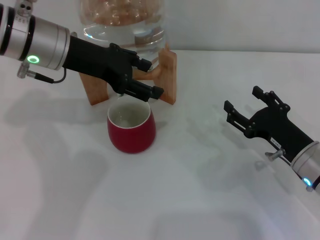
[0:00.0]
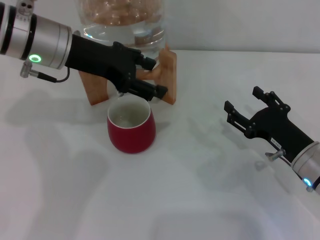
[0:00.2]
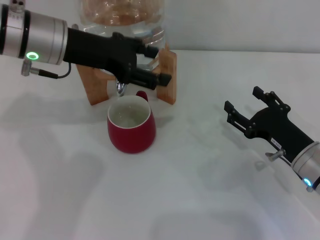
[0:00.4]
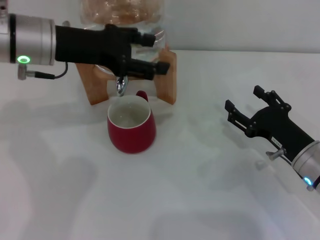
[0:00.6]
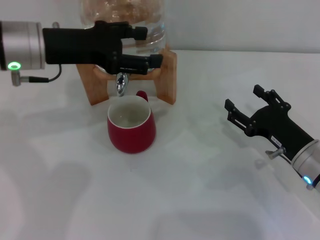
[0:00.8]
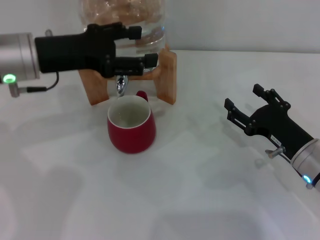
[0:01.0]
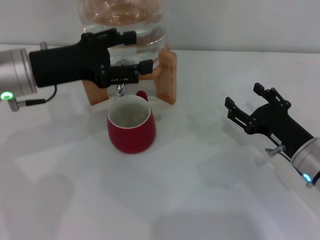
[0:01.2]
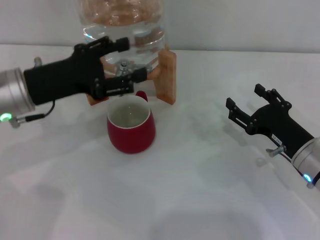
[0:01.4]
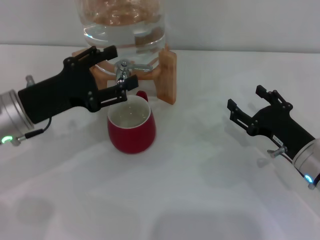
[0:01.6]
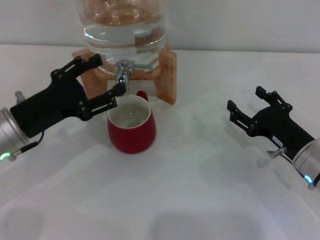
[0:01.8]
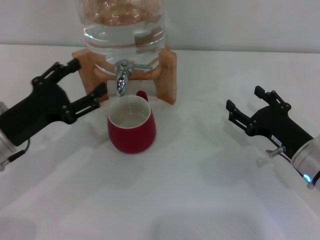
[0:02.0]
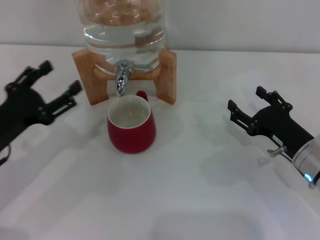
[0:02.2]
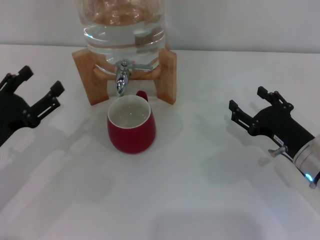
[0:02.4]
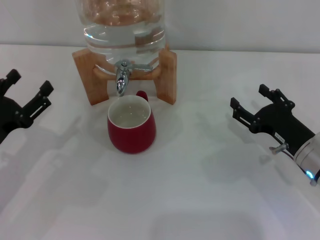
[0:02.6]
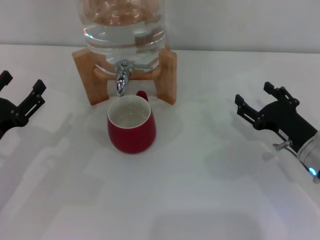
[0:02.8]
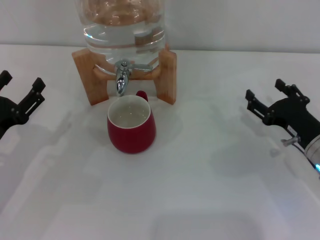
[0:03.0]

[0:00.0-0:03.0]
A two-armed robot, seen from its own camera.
Task of the whole recording: the right gripper pick up the red cup and place it horizontally under the faucet, the left gripper turn on the faucet to fill the cup, and then turn off the faucet.
0:00.0 to 0:01.6: The left gripper is displaced downward, backward and to the left by roughly 15 cm.
0:01.6 to 0:03.0: The left gripper shifts approximately 10 cm downward, backward and to the left.

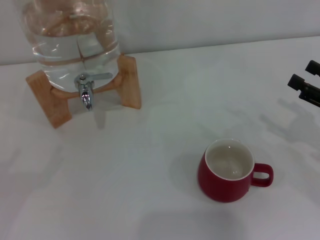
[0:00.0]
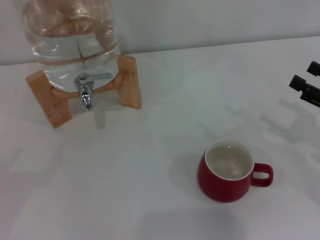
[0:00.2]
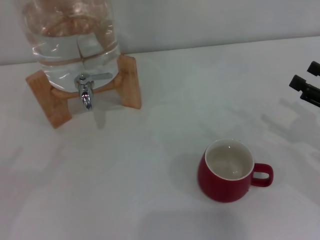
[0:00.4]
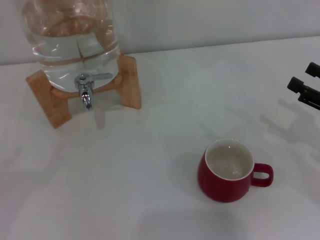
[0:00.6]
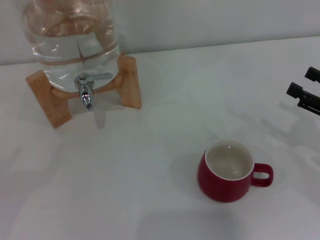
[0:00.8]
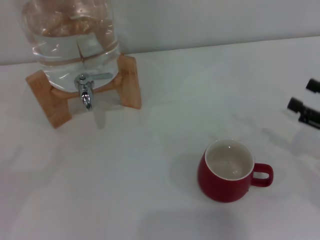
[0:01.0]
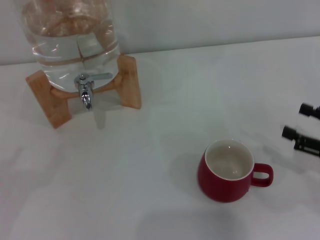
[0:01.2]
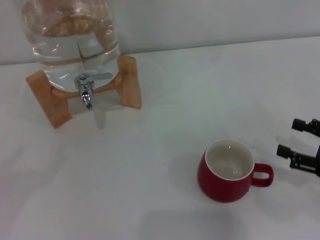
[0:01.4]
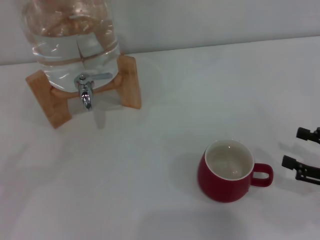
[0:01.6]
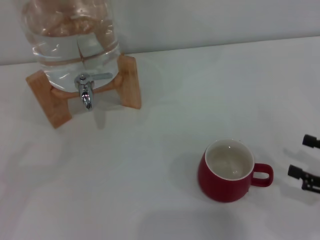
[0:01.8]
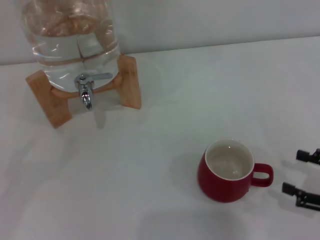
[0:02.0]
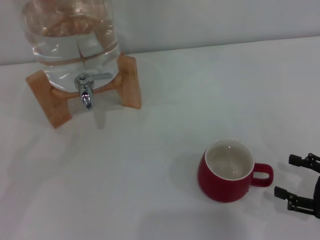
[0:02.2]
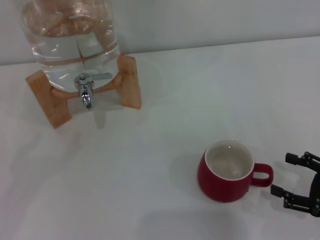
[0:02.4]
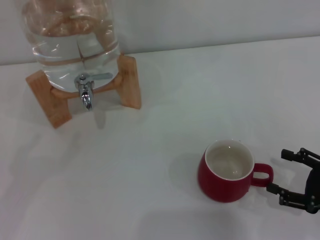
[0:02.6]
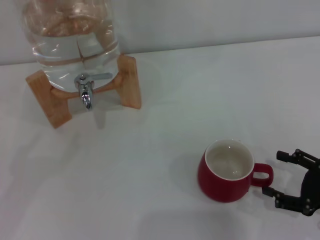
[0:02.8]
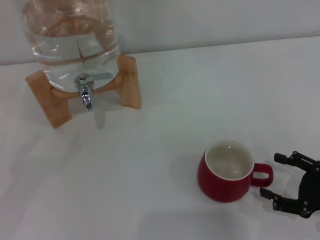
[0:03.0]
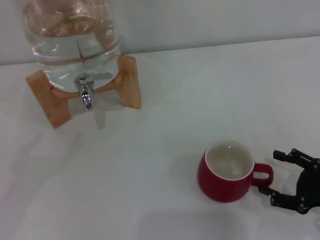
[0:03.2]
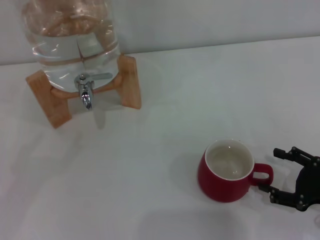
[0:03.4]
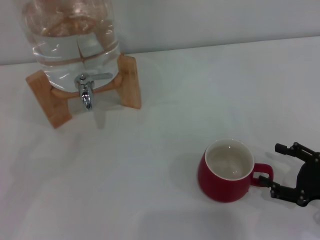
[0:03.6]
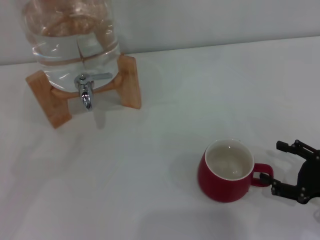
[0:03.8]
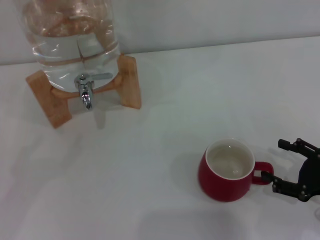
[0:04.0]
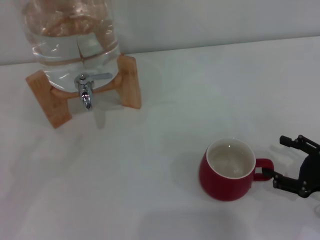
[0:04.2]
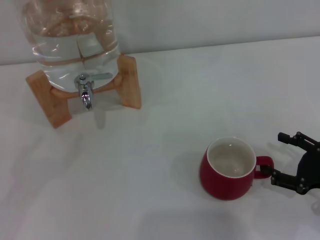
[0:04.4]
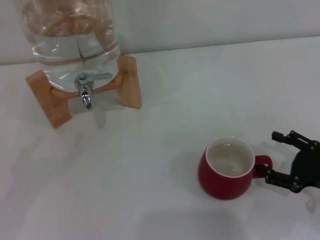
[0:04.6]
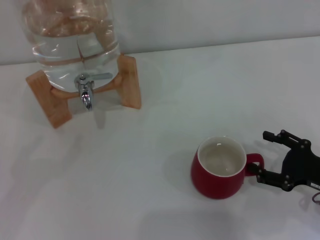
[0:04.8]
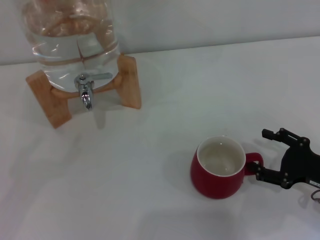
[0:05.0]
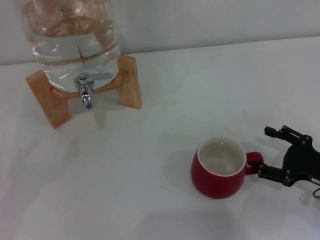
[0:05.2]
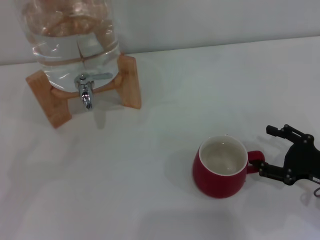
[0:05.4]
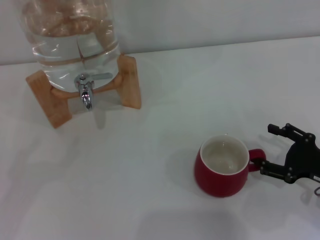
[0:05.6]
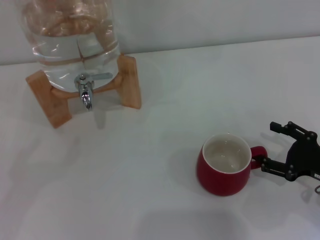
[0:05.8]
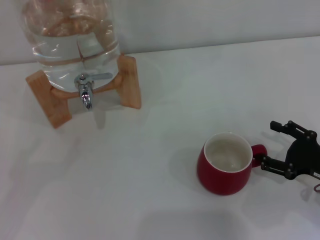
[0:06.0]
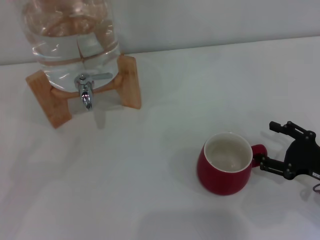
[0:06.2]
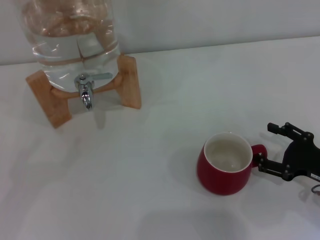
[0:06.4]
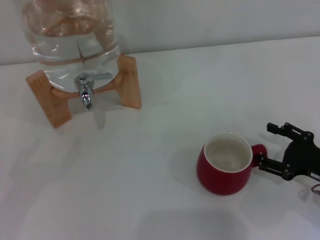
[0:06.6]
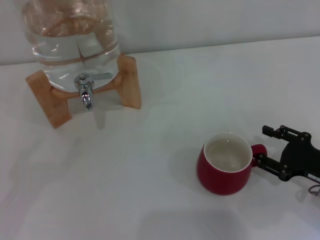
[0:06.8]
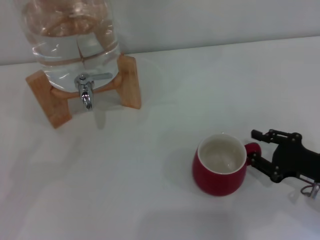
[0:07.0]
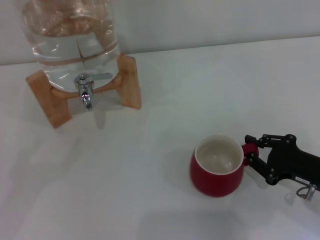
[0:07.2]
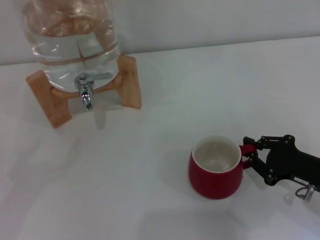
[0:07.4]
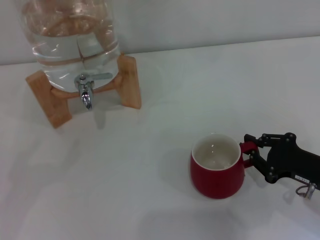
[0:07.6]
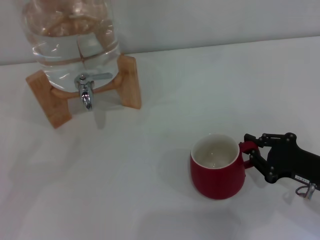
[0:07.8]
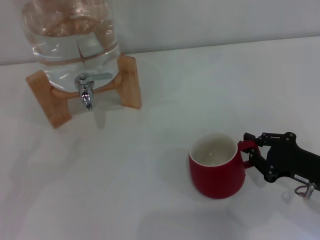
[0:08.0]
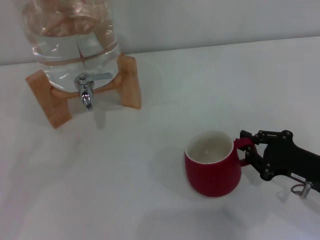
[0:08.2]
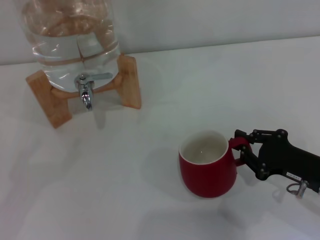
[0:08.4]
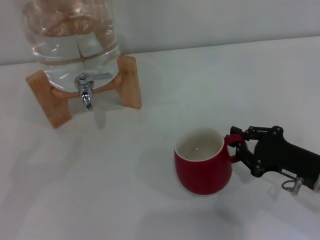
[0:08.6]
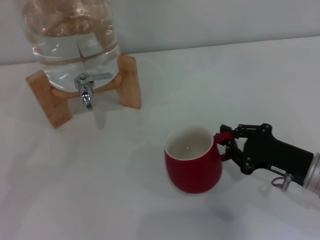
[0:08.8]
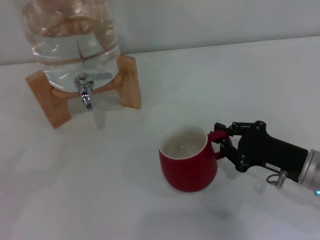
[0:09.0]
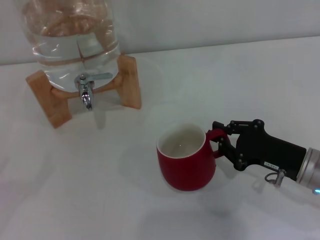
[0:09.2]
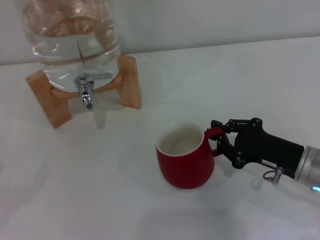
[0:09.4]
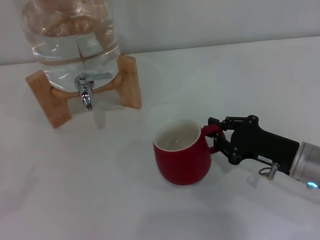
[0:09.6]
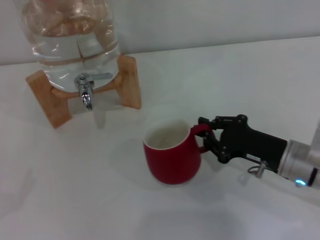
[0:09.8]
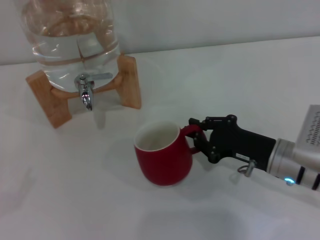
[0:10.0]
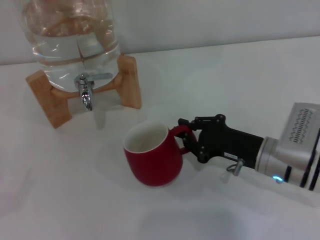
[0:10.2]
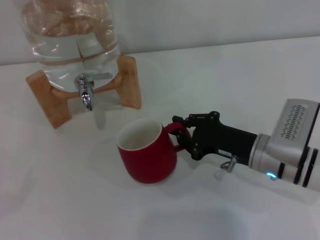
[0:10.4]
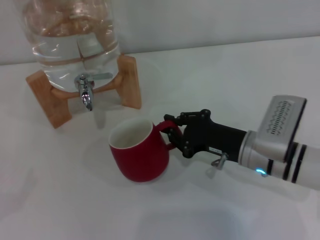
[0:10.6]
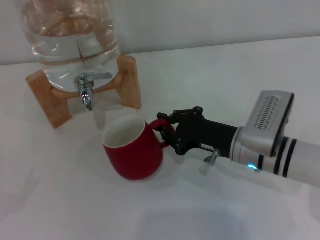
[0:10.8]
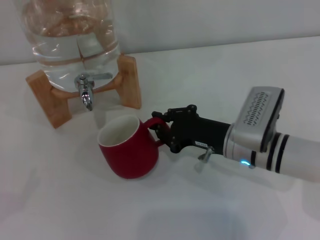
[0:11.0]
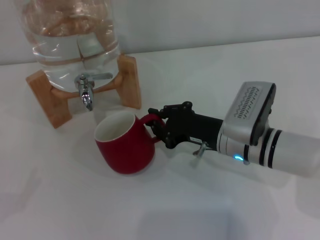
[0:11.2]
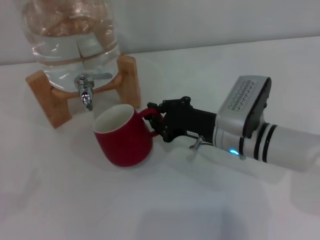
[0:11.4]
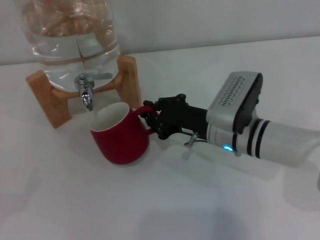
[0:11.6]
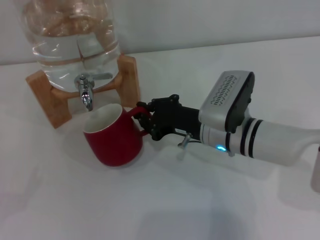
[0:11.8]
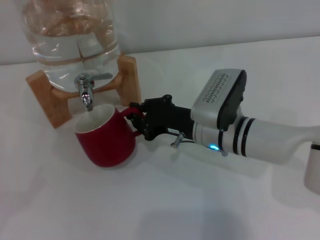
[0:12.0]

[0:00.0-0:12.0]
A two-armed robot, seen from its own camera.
Task of the whole recording: the right gripper pick up the red cup and place it horizontally under the faucet, the left gripper turn on the faucet to fill the cup, and then turn off the faucet.
0:00.0 to 0:01.6: The right gripper is displaced backward by roughly 5 cm.
0:01.6 to 0:06.0: There are only small adjustments of the grippers.
0:06.0 to 0:07.6: The right gripper closes its fingers.
0:07.6 to 0:09.0: There are only small adjustments of the grippers.
0:09.0 to 0:10.4: The right gripper heads to the left, covering approximately 5 cm.
0:10.4 to 0:12.0: The right gripper goes some 10 cm to the left and forward.

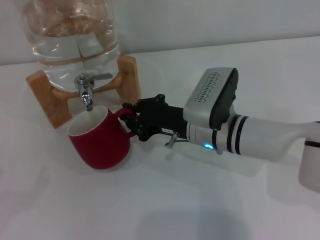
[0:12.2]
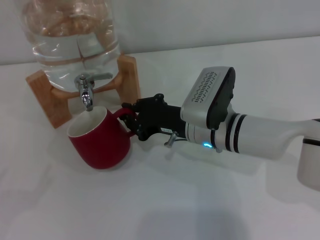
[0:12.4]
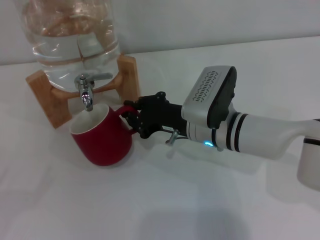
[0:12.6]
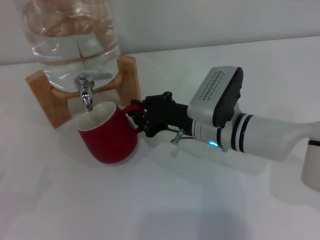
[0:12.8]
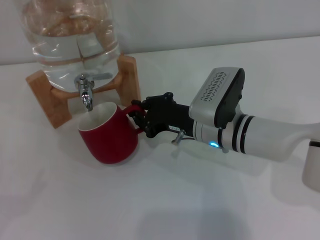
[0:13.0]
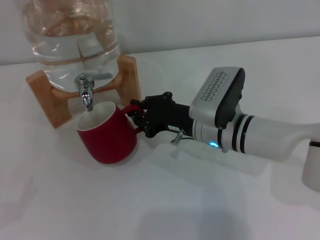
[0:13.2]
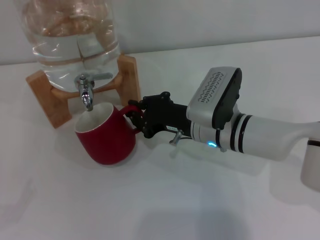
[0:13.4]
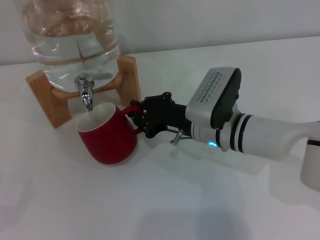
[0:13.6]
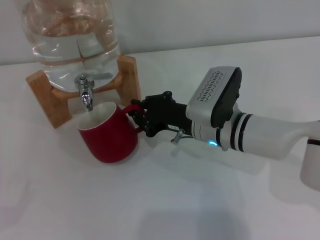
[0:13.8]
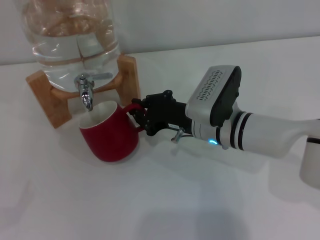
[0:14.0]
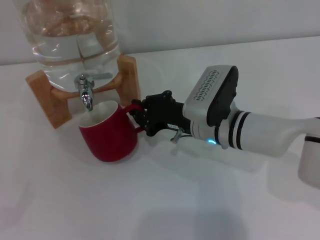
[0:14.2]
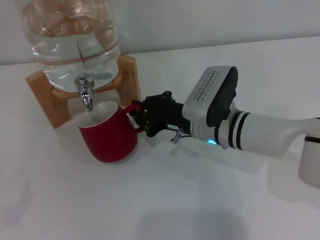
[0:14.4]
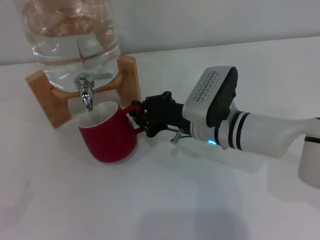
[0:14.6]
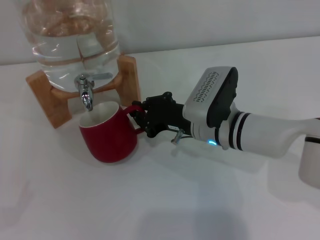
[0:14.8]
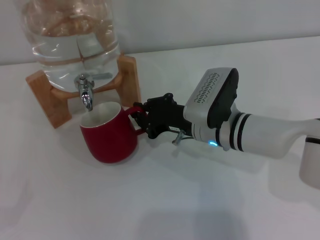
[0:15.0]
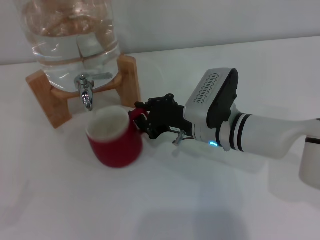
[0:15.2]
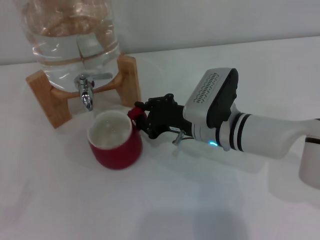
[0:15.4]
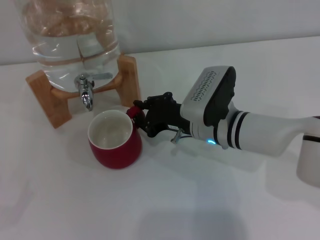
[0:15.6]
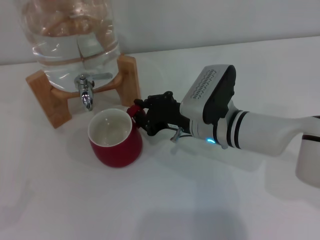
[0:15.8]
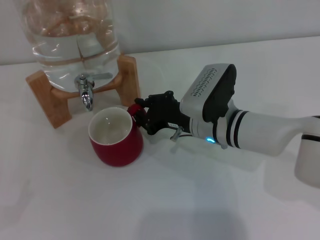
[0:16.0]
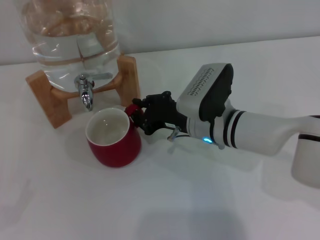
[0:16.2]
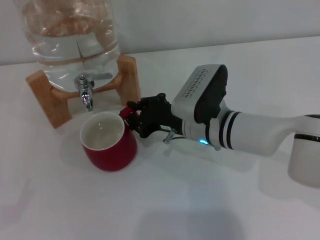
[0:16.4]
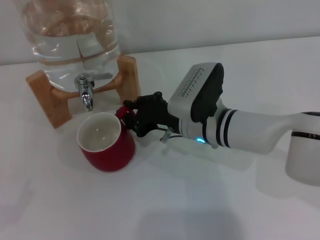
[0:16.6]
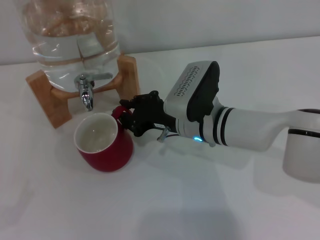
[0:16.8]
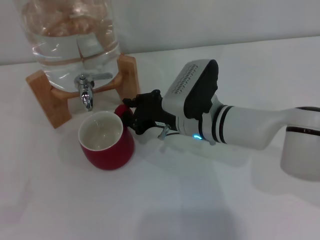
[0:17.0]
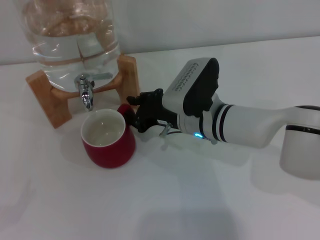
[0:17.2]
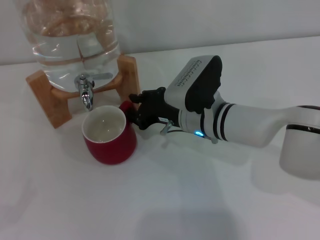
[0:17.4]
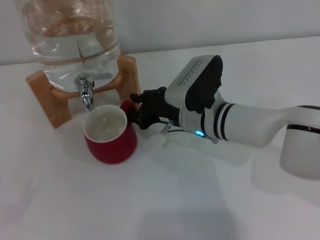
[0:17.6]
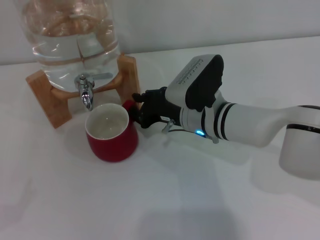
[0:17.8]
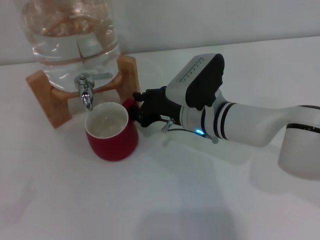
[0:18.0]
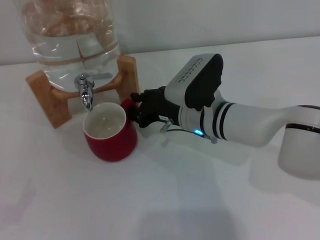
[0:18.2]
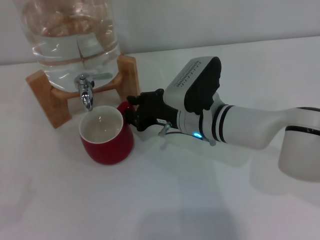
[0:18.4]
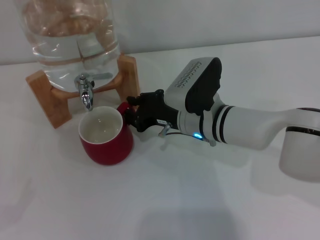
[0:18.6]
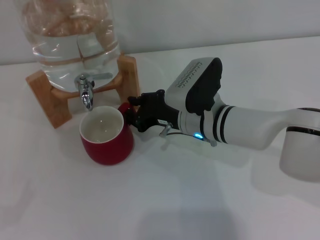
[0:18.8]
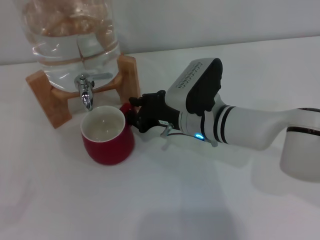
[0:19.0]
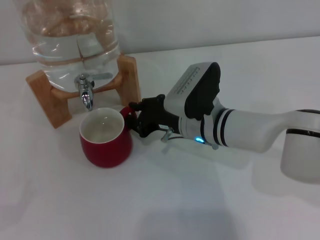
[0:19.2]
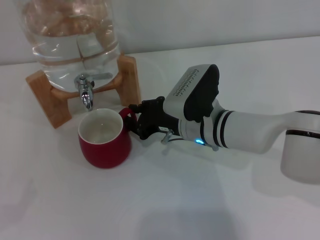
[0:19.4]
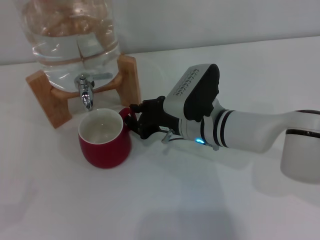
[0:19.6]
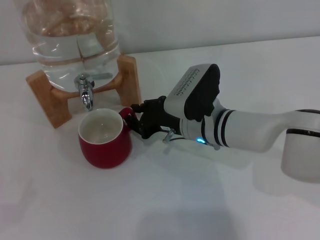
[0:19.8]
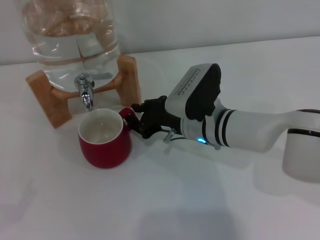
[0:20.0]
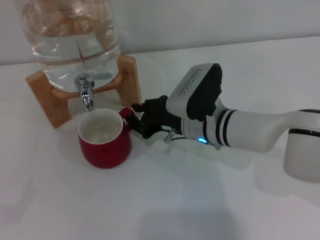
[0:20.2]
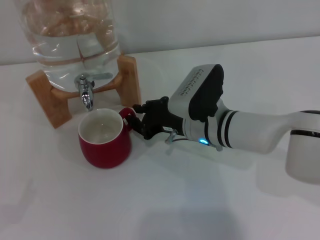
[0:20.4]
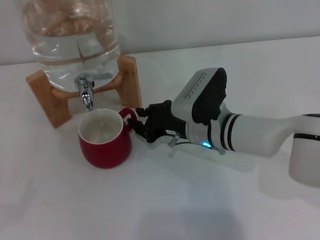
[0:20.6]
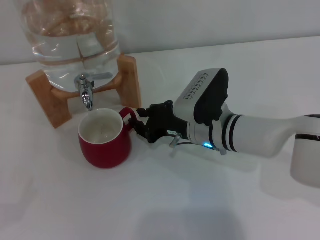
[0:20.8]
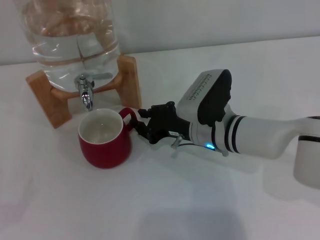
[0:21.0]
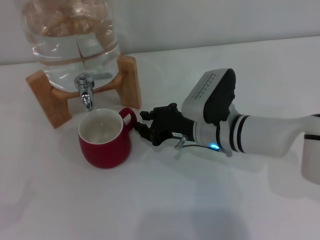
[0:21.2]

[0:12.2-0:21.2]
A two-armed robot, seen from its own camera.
Task of the whole recording: the right gripper pick up the red cup and place it horizontally under the faucet, the left gripper turn on the faucet to fill the cup, and then turn off the faucet.
0:12.2 to 0:13.8: There are only small adjustments of the grippers.
0:13.8 to 0:15.2: Both grippers stay about where they are.
0:15.2 to 0:18.2: The grippers make only small movements.
0:18.2 to 0:19.8: Neither gripper changes place.
0:19.8 to 0:21.2: The grippers make only small movements.
